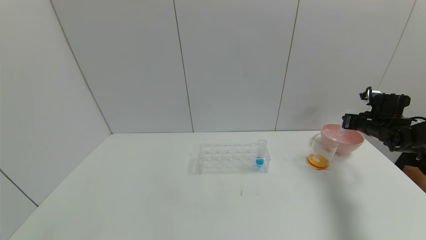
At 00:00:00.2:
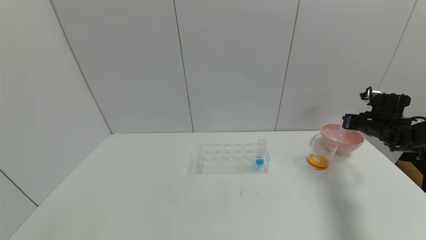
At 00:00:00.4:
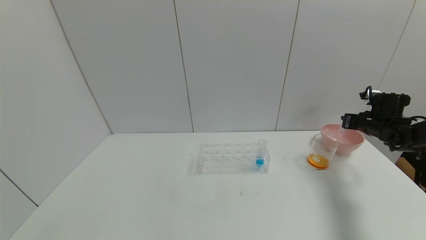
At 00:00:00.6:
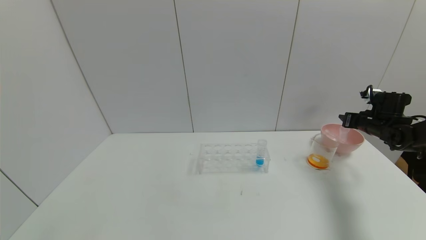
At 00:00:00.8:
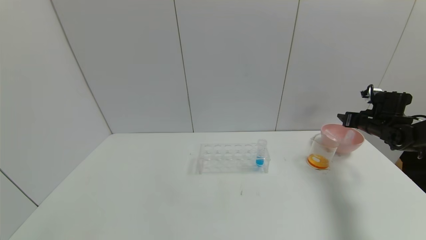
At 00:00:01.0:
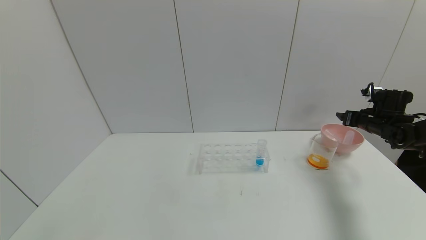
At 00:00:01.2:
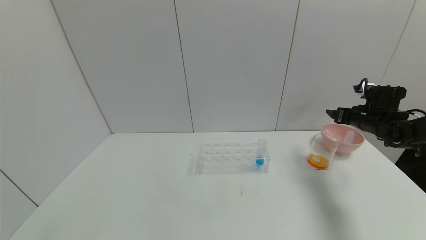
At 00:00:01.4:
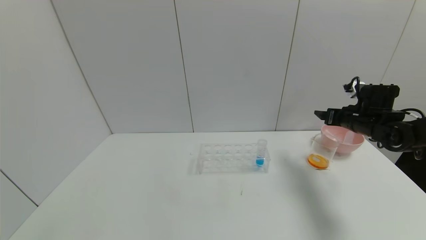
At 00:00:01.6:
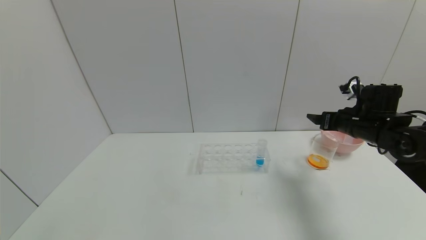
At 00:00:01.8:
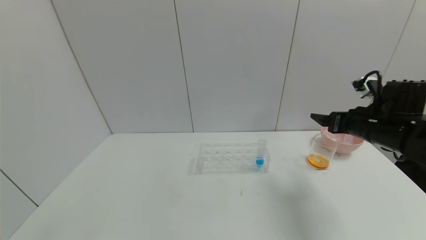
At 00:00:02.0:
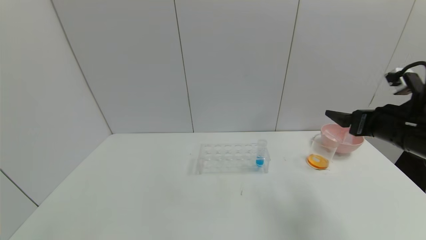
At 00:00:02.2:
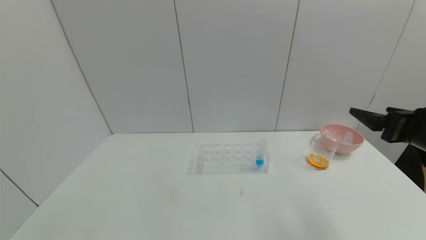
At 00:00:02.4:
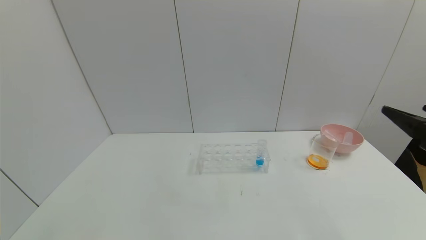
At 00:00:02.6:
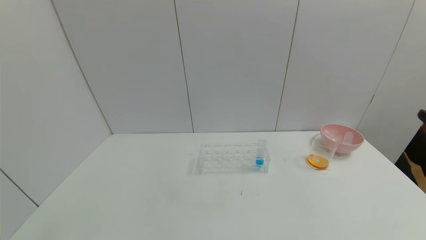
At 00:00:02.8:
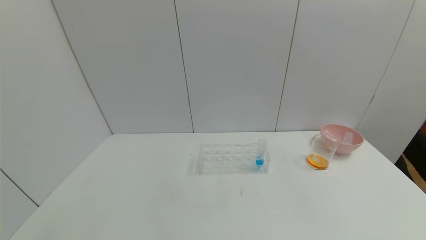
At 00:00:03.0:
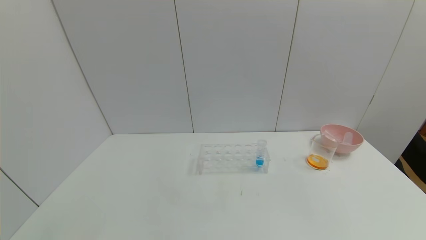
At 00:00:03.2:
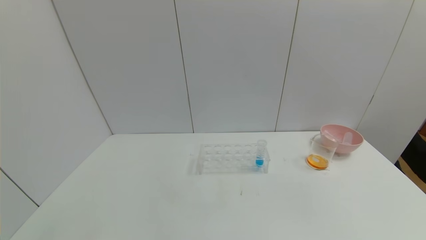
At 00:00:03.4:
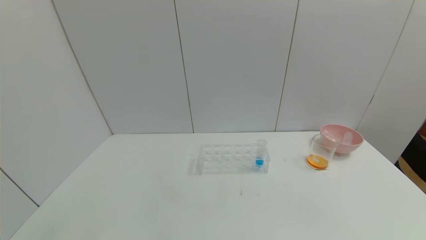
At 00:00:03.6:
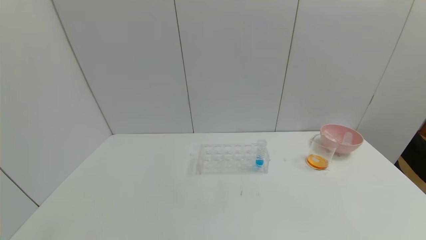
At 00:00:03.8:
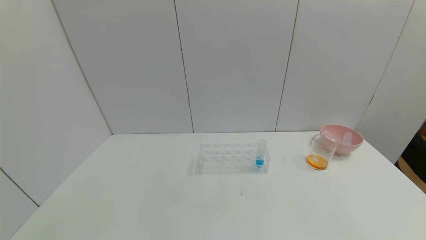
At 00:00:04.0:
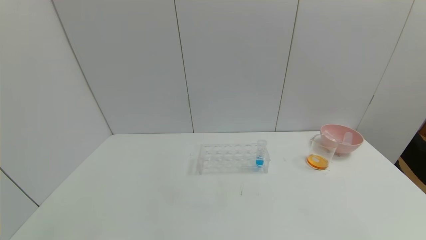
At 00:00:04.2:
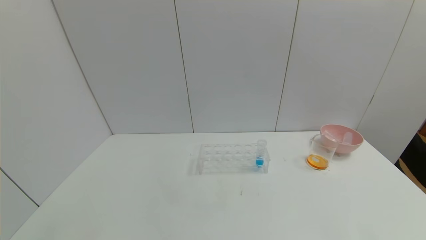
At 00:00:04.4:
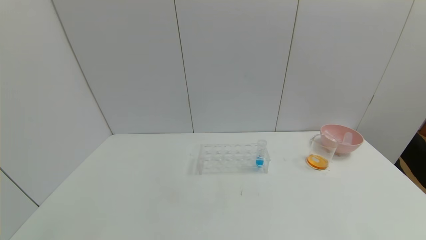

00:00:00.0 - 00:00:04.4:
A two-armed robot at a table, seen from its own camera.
Task of the whole recording: pick up the test tube with yellow pigment and the test tube with red pigment by grippers and pour them into the beaker.
00:00:00.0 - 00:00:01.4: The right gripper goes some 10 cm to the left, and opens up.
00:00:01.4 - 00:00:03.0: The right gripper shifts roughly 40 cm backward.

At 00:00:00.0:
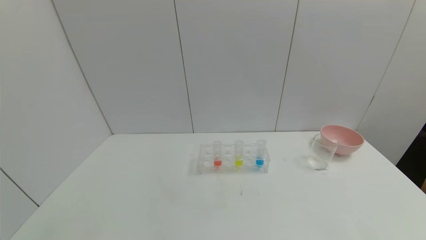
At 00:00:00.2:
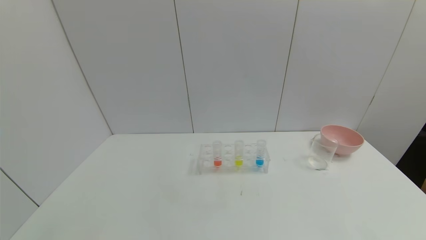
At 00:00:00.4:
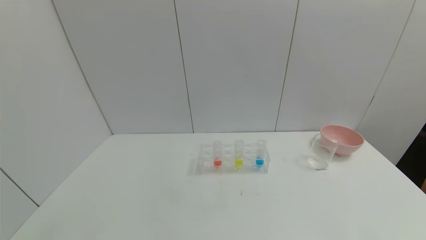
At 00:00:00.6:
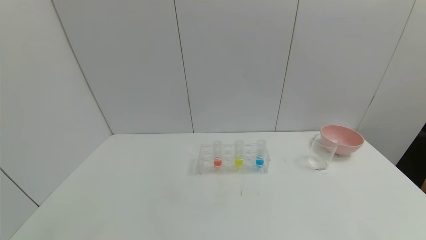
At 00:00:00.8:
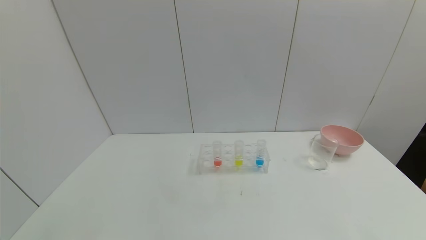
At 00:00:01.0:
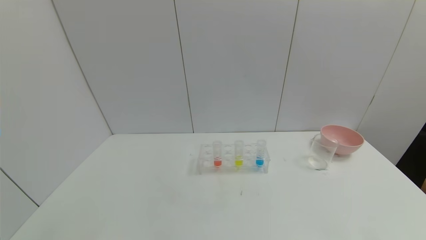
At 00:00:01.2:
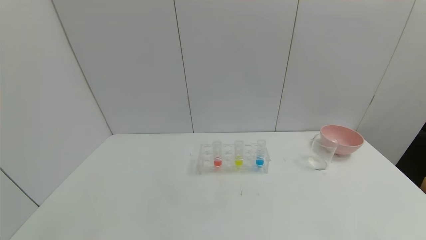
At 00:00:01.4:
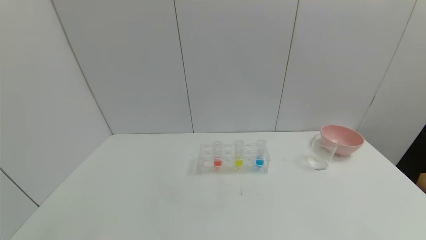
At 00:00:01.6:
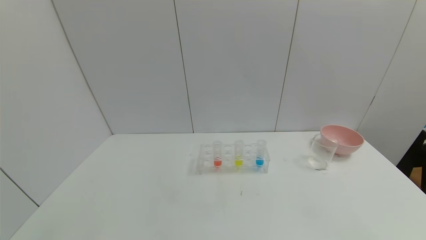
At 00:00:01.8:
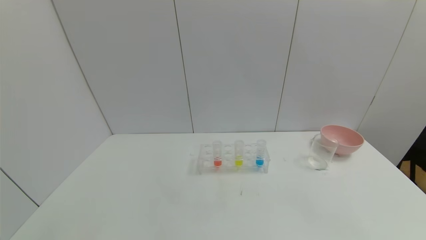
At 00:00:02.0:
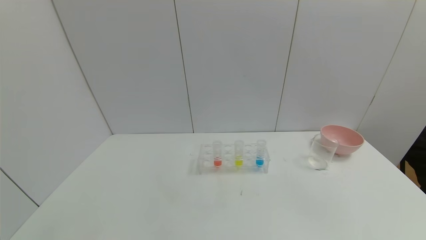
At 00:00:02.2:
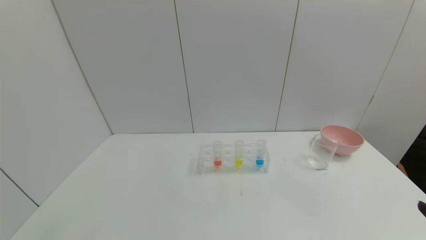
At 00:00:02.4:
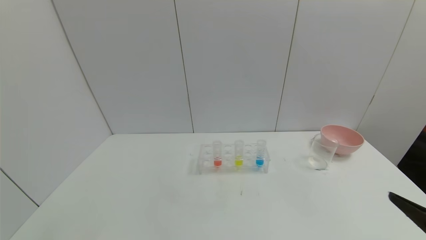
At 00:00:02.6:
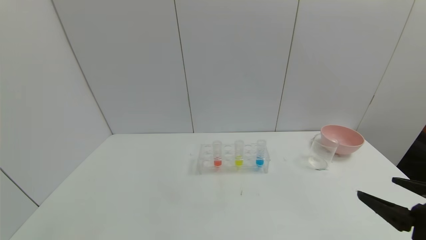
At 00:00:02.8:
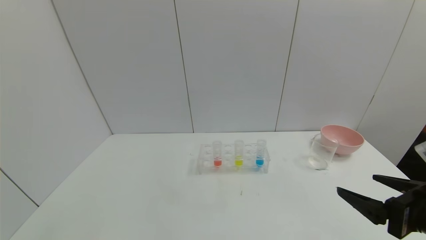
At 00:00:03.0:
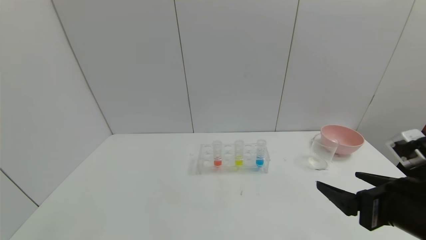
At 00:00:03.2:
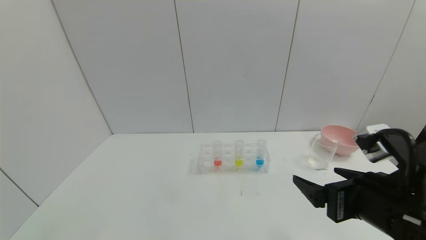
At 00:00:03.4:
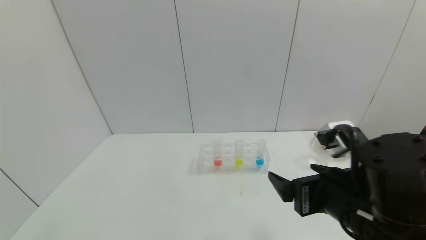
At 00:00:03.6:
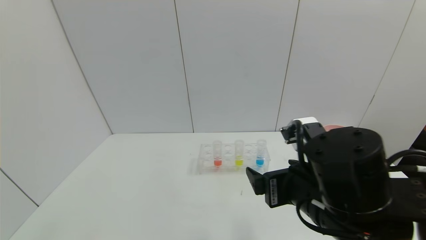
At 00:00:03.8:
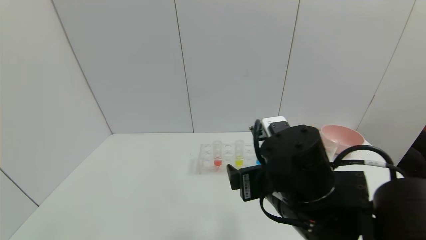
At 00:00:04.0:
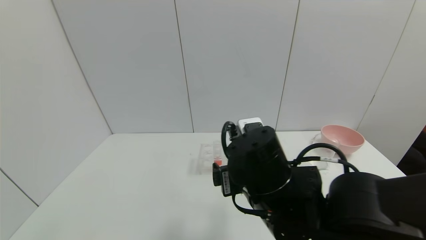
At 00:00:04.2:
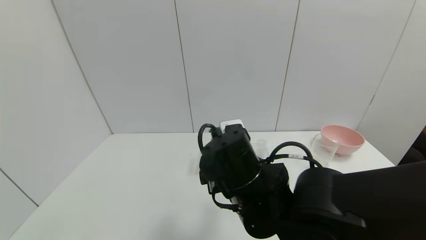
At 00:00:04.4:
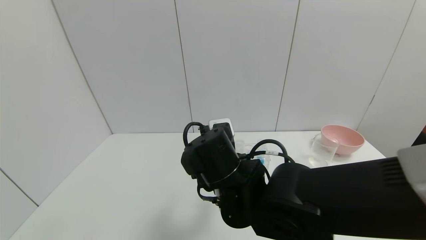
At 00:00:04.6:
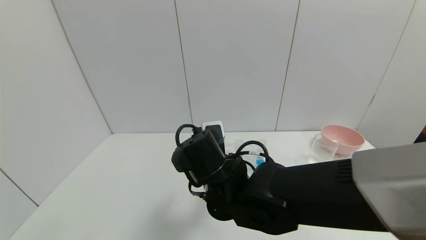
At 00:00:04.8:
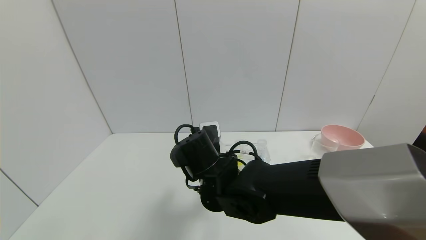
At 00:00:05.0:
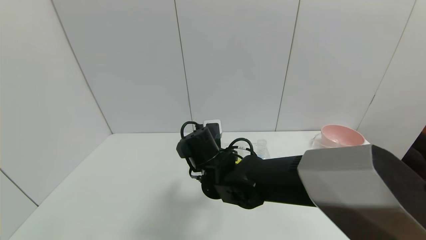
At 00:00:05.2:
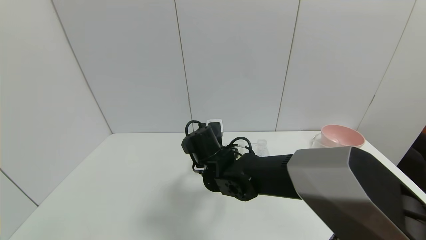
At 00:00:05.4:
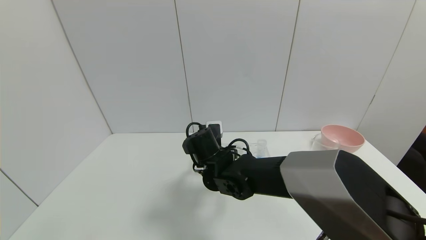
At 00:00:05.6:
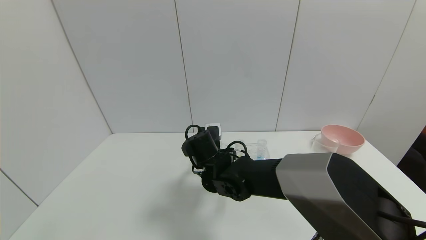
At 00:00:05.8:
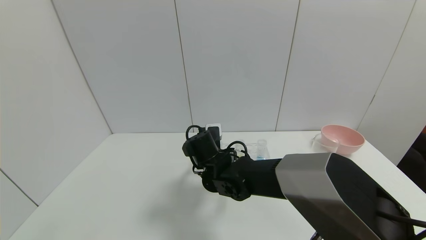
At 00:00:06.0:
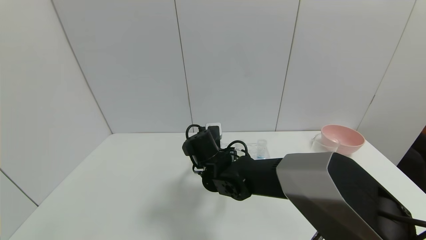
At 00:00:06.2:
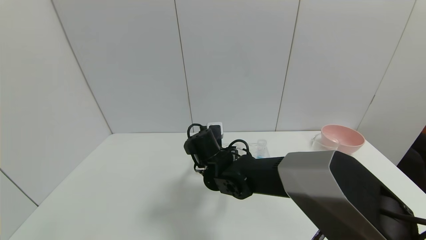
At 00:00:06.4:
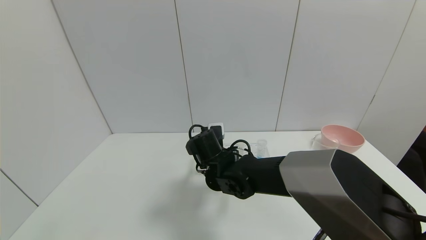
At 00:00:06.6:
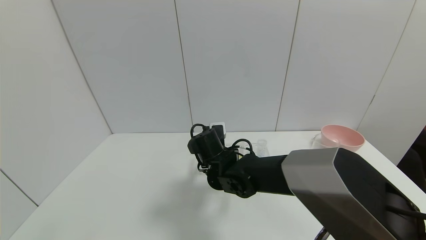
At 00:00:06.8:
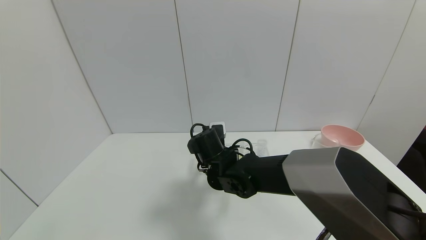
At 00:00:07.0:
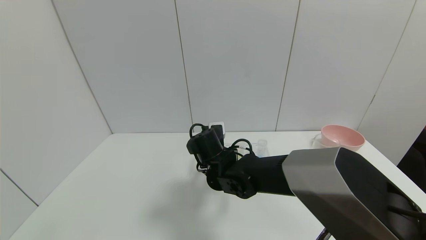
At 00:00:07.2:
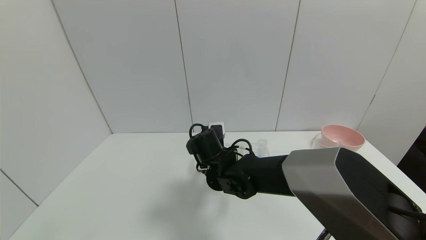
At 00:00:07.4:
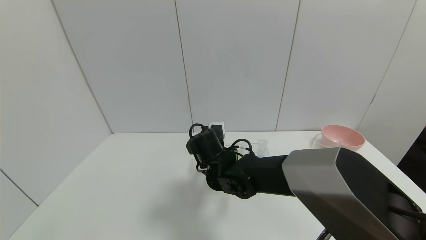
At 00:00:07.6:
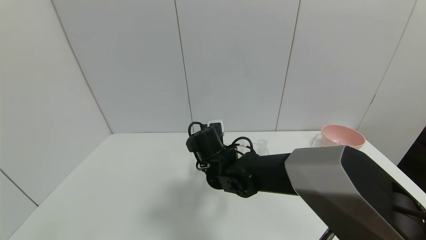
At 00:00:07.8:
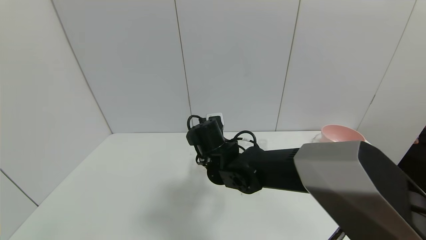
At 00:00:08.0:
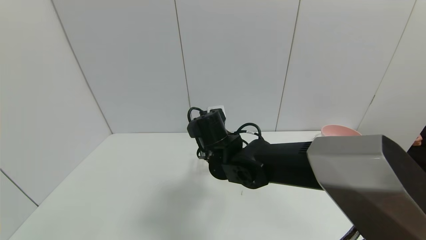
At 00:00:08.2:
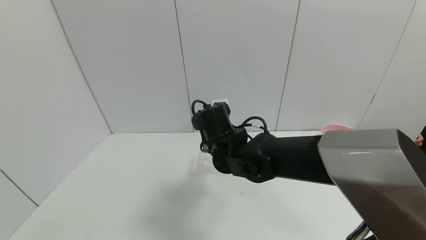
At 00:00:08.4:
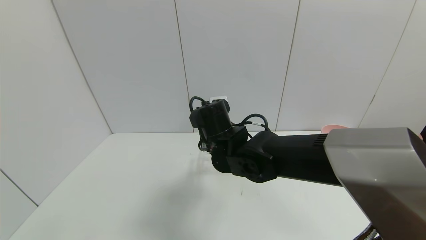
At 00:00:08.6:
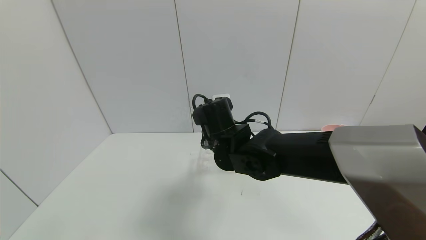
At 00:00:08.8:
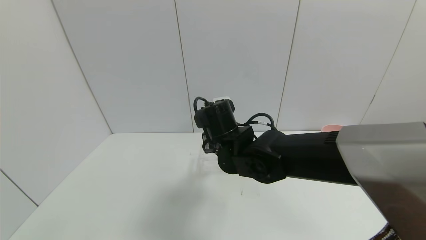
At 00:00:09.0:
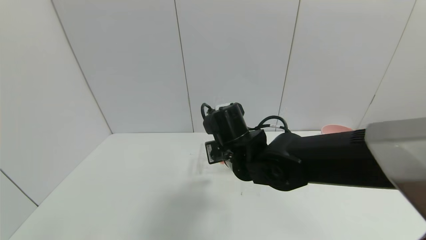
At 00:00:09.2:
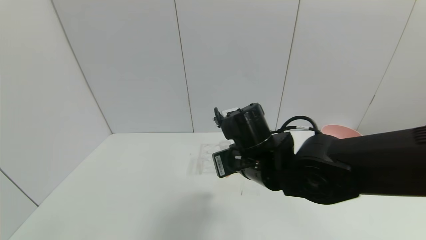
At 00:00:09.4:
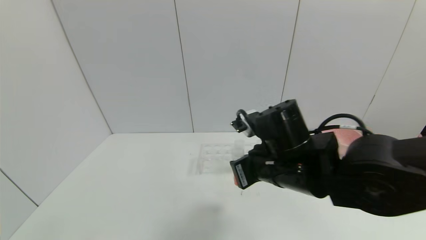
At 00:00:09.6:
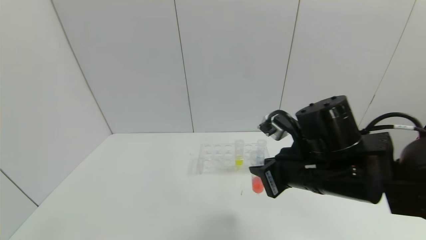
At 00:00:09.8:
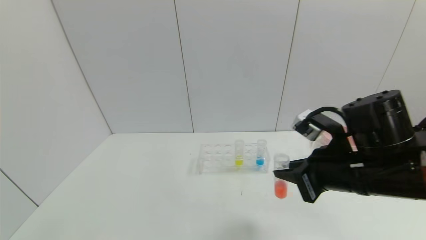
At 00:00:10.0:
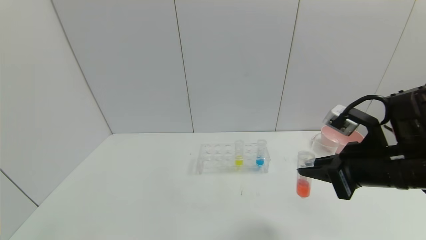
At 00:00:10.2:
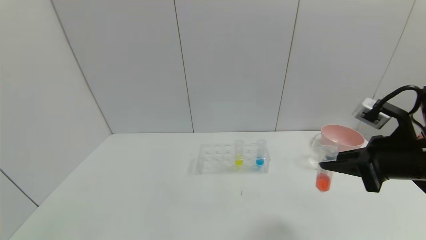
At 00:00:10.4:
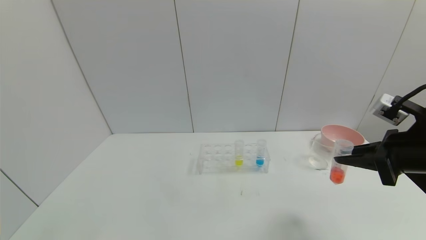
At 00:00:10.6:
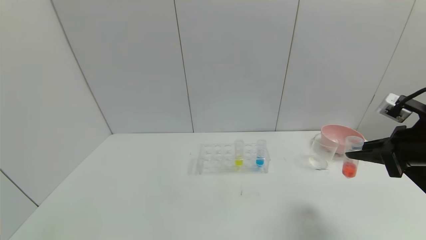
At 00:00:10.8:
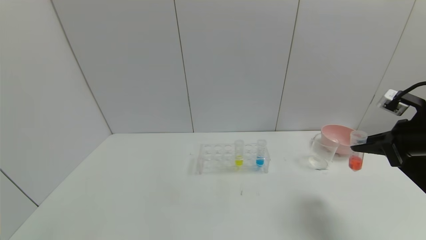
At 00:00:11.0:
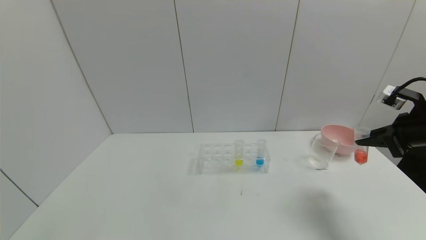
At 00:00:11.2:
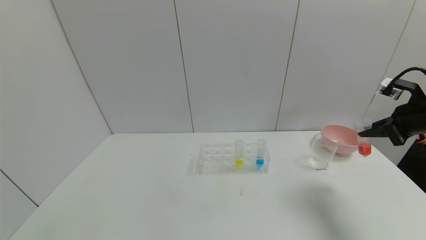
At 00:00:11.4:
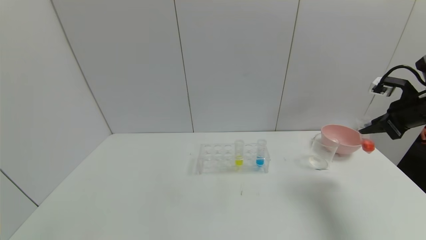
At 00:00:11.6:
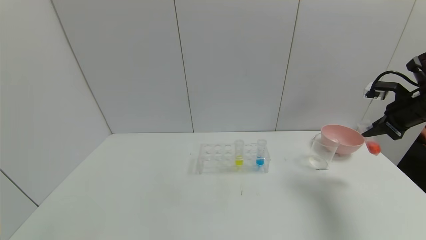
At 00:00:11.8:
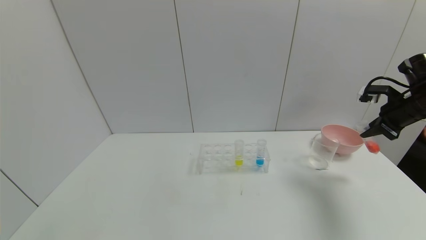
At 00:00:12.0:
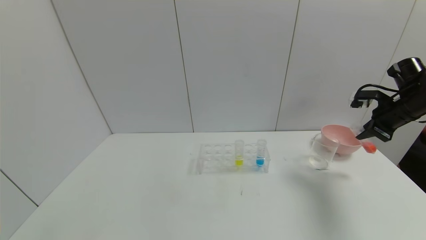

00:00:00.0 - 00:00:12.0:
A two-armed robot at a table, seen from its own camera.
Task of the whole recording: pick up the test tube with yellow pigment and the test tube with red pigment by grippers and pour them into the beaker.
Step, 00:00:00.0 - 00:00:06.8: Grasp the red reagent with the right gripper.
00:00:01.6 - 00:00:03.0: The right gripper heads forward, to the left and upward, covering roughly 20 cm.
00:00:03.0 - 00:00:04.4: The right gripper is displaced to the left and forward by some 25 cm.
00:00:04.4 - 00:00:06.0: The right gripper moves forward and downward, about 10 cm.
00:00:06.0 - 00:00:07.6: The right gripper closes up.
00:00:07.6 - 00:00:09.0: The right gripper heads upward, covering about 5 cm.
00:00:09.0 - 00:00:10.4: The right gripper shifts roughly 30 cm to the right.
00:00:10.4 - 00:00:12.0: The right gripper moves forward and to the right, approximately 20 cm.
